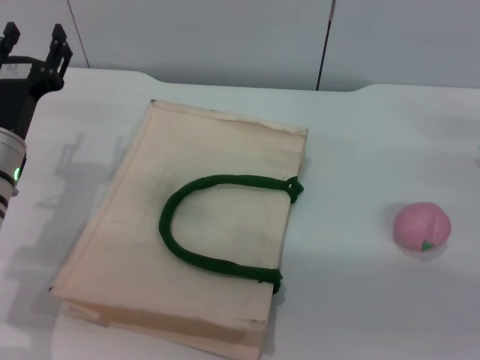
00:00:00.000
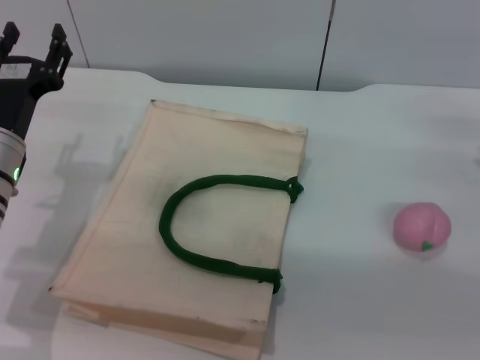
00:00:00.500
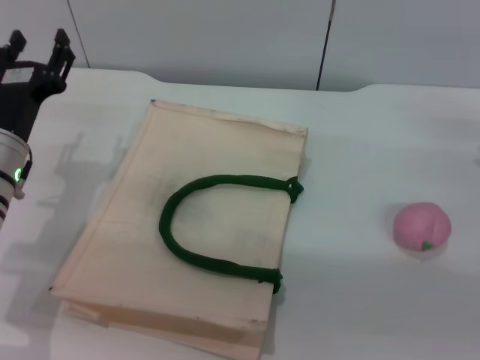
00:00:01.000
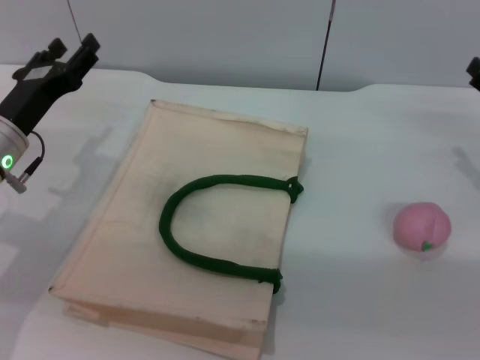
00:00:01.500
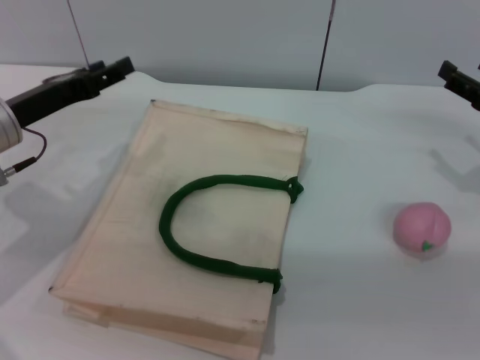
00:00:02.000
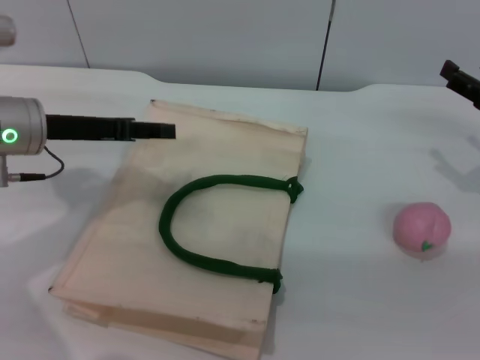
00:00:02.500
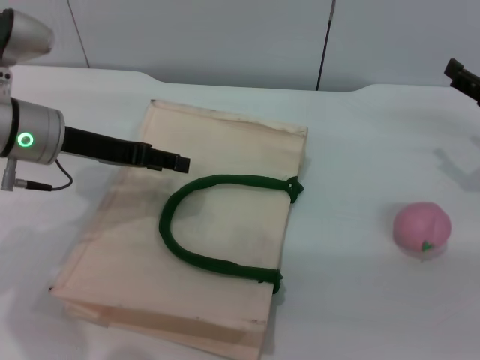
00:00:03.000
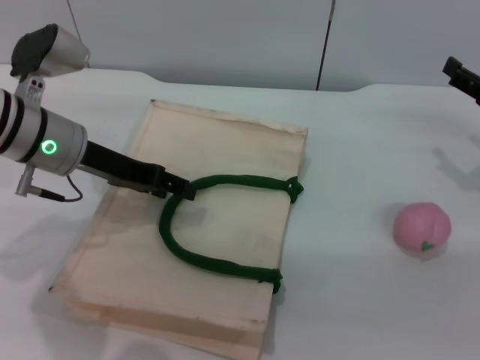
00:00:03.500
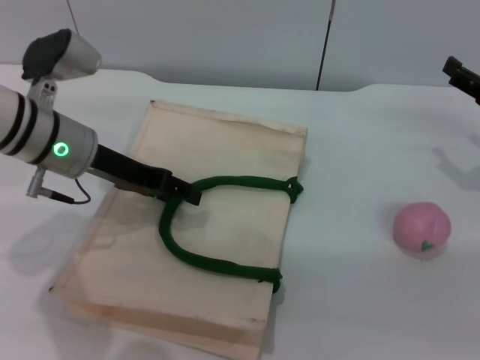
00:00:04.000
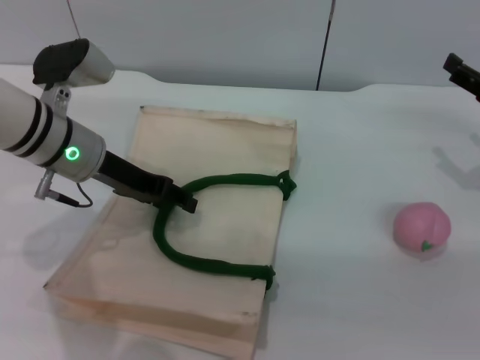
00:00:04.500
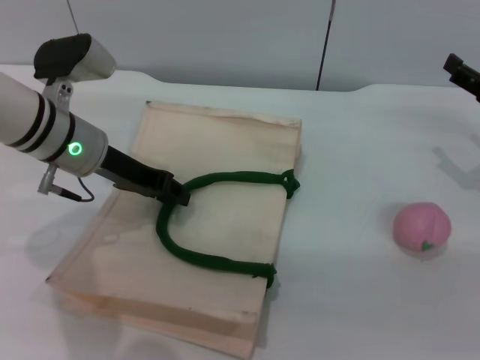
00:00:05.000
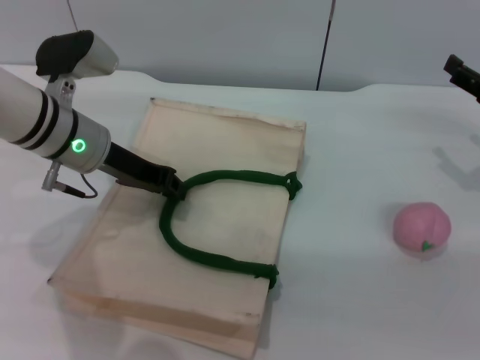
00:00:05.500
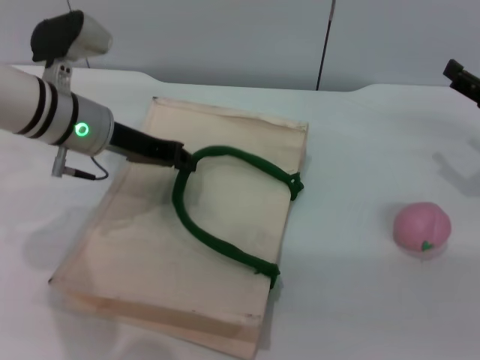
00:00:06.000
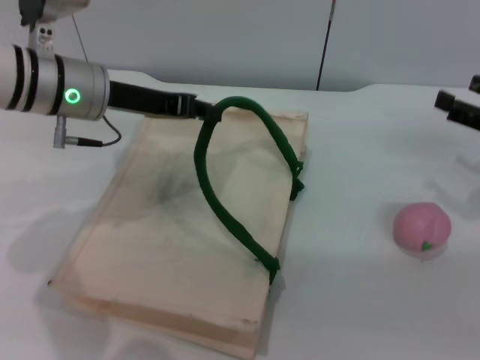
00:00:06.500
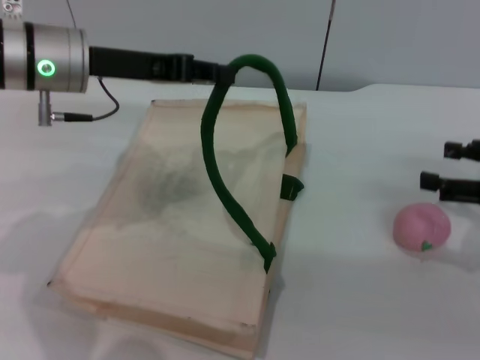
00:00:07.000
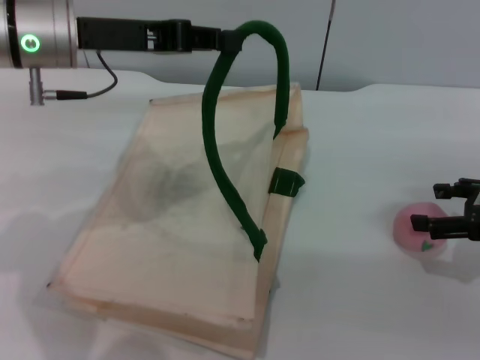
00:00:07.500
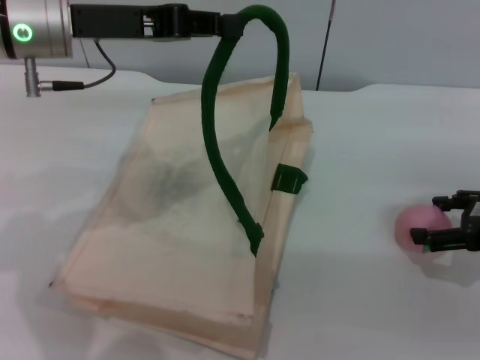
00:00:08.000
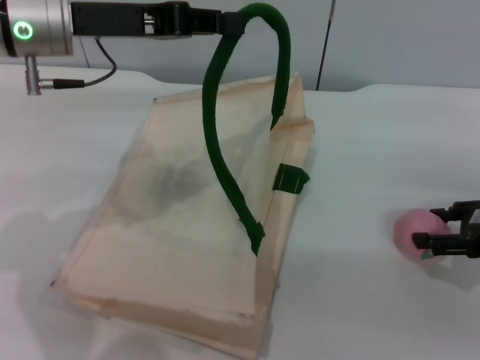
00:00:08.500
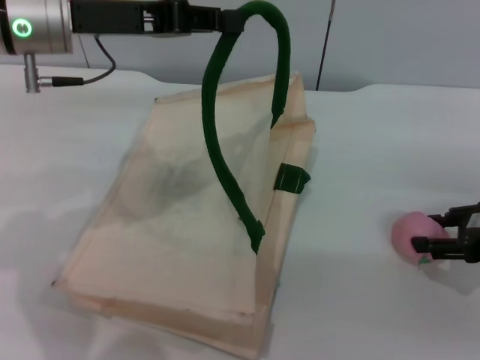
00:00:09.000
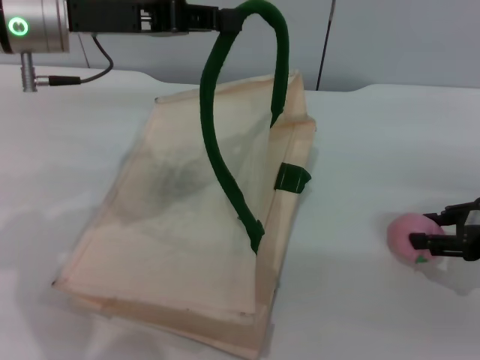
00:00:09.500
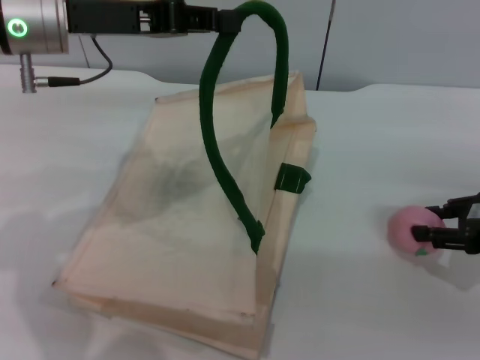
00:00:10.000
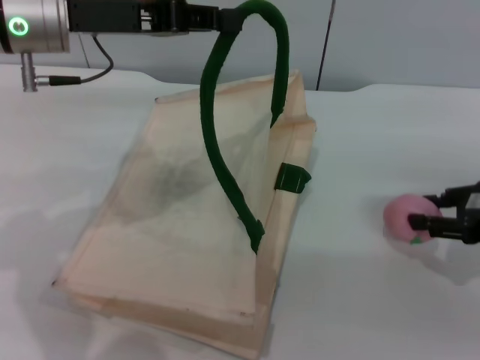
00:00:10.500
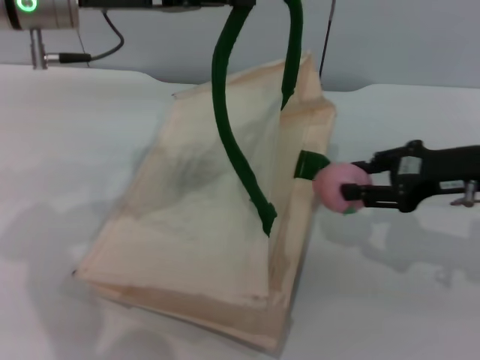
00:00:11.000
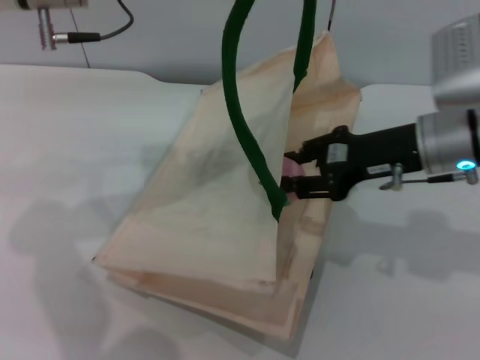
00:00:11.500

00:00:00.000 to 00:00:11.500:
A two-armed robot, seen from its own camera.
Task of the whole recording: pick up the peach from the table and place it in the white handbag.
Step, 00:00:00.000 to 00:00:06.500: Lift the woven bag with the left gripper to open it.
Step, 00:00:07.000 to 00:00:08.000: Pick up the peach with the right gripper.
00:00:00.000 to 00:00:02.000: The left gripper shifts by approximately 5 cm.
00:00:02.000 to 00:00:04.000: The left gripper moves to the right, approximately 5 cm.
00:00:04.000 to 00:00:06.000: The left gripper closes up.
00:00:06.000 to 00:00:07.500: The left gripper shifts approximately 10 cm upward.
00:00:07.500 to 00:00:09.500: The right gripper closes its fingers.
00:00:09.500 to 00:00:11.500: The right gripper goes roughly 15 cm to the left.

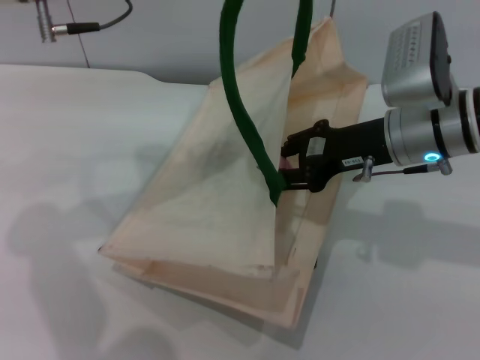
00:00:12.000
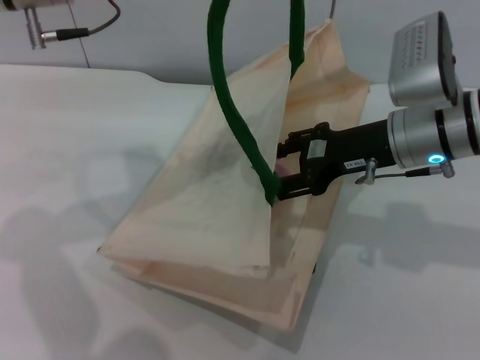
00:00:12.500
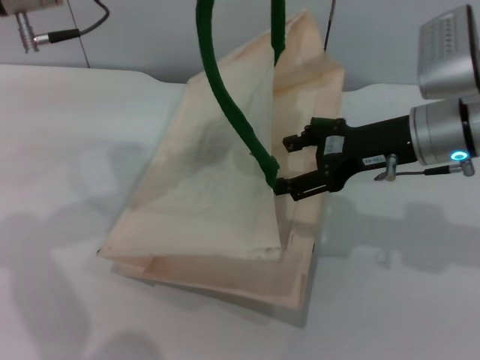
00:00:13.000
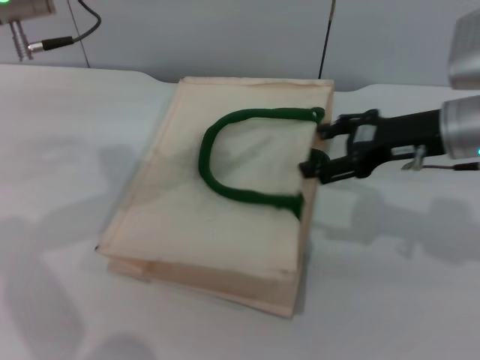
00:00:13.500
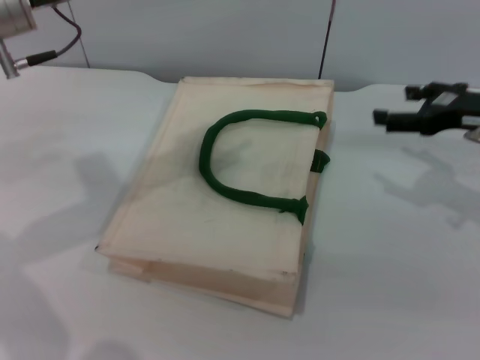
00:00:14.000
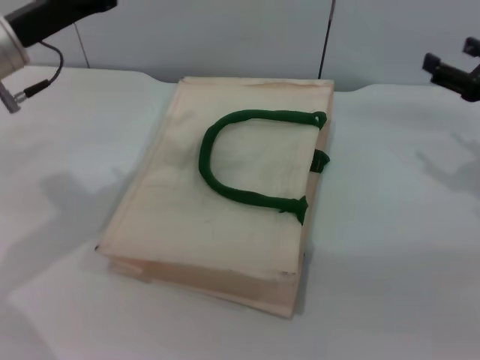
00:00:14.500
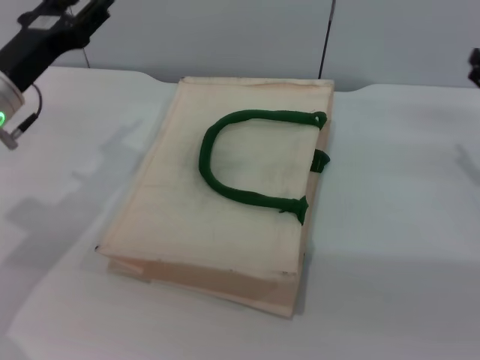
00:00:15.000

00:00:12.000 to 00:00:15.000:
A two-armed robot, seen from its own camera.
Task of the whole recording: pick up the peach from the table and place it in the white handbag.
Step, 00:00:13.000 to 00:00:13.500: Lower the woven bag with the left gripper to close it.
00:00:12.000 to 00:00:13.500: The right gripper shifts approximately 5 cm to the right, and opens; the left gripper opens.
00:00:13.500 to 00:00:15.000: The right gripper goes roughly 10 cm to the right and downward; the left gripper shifts some 10 cm downward, and opens its fingers.

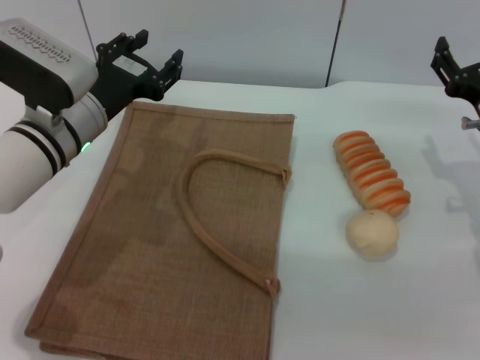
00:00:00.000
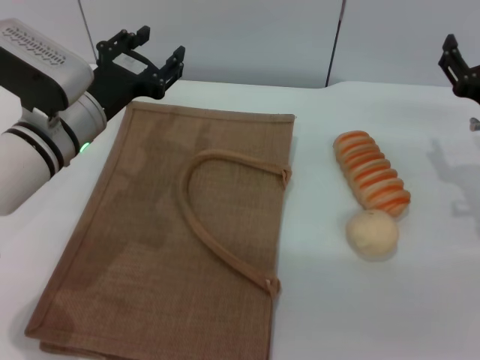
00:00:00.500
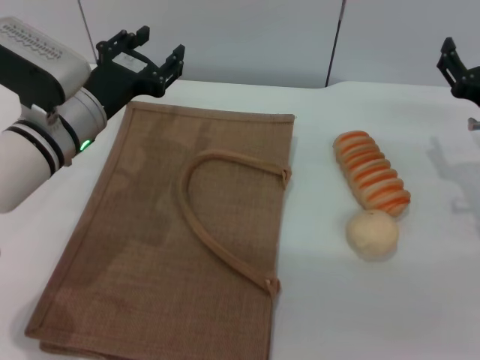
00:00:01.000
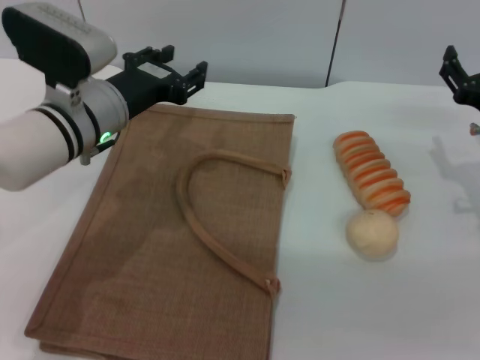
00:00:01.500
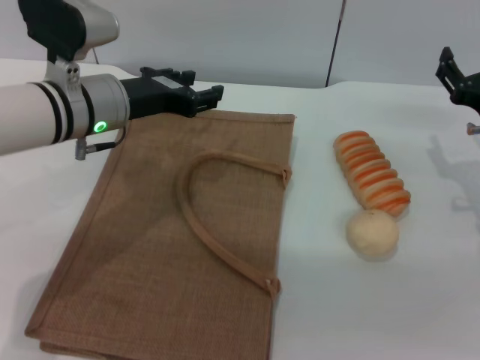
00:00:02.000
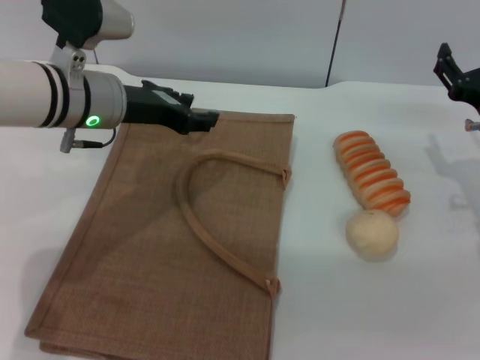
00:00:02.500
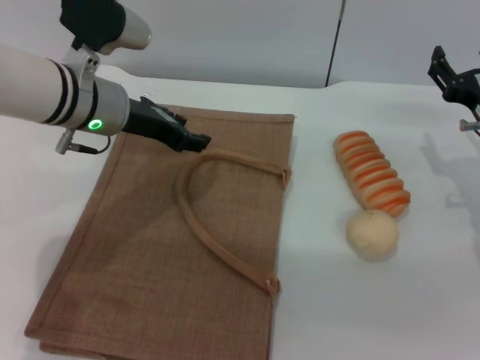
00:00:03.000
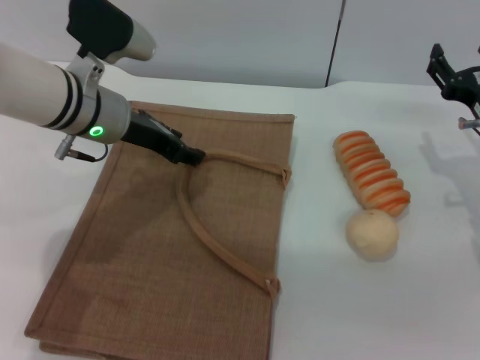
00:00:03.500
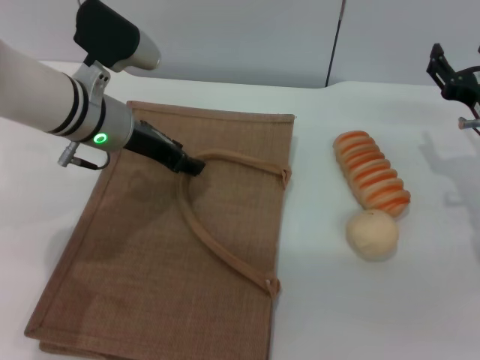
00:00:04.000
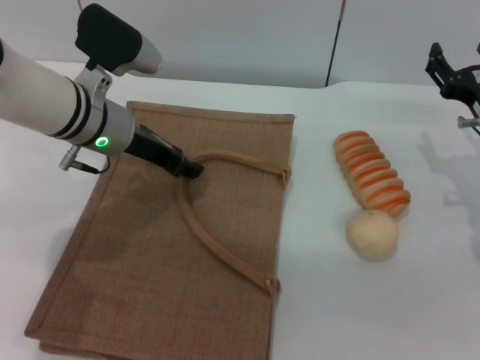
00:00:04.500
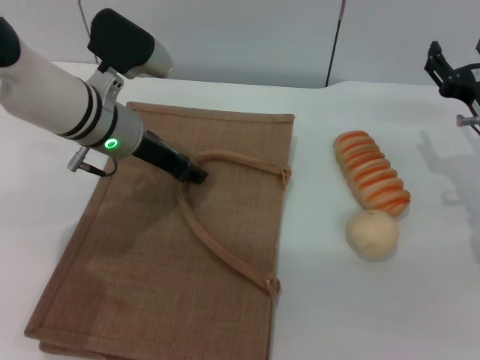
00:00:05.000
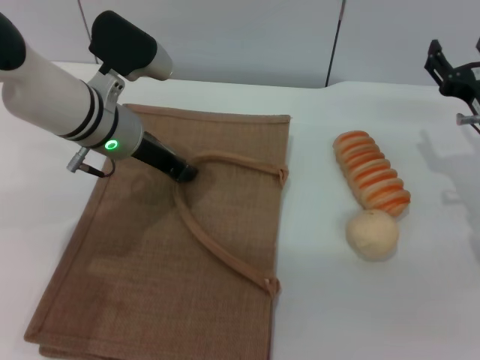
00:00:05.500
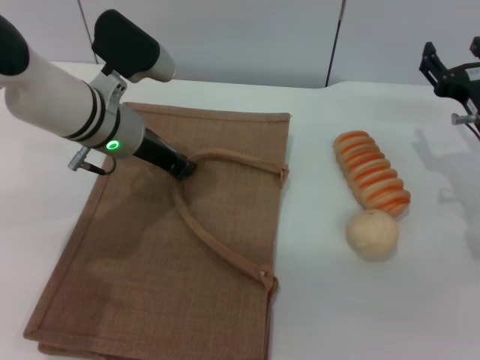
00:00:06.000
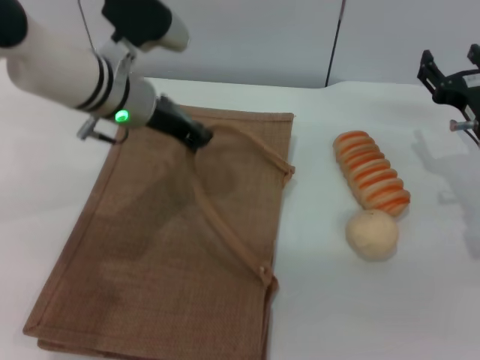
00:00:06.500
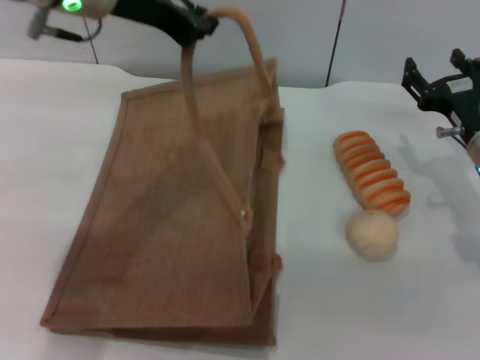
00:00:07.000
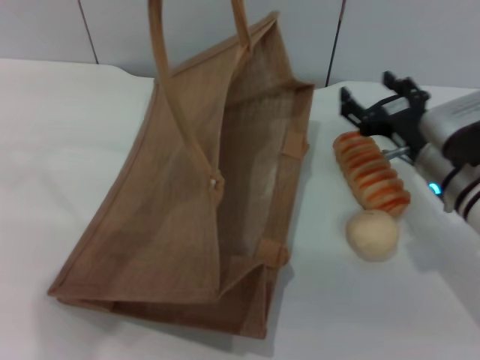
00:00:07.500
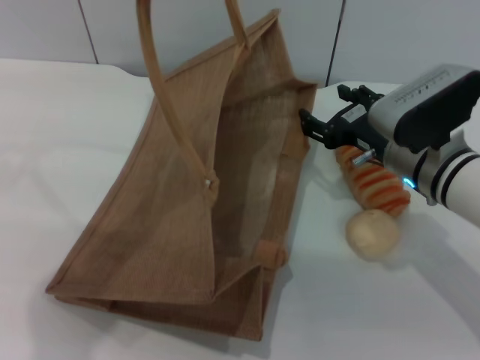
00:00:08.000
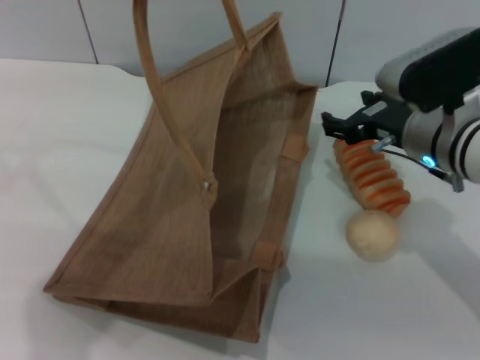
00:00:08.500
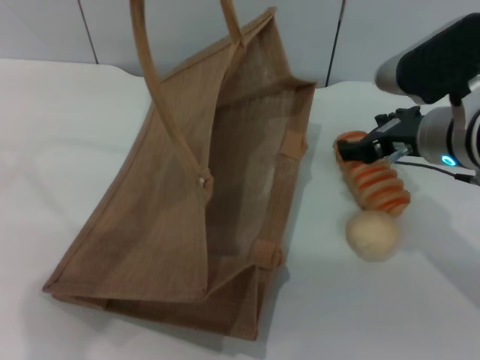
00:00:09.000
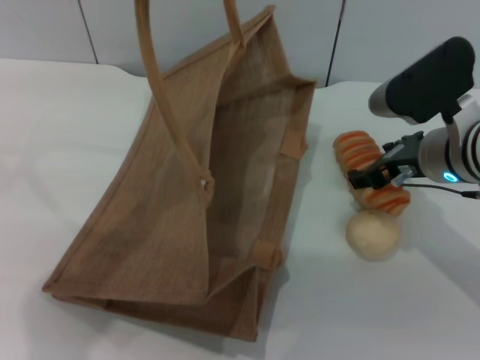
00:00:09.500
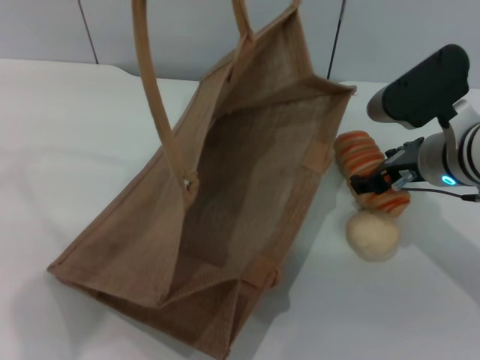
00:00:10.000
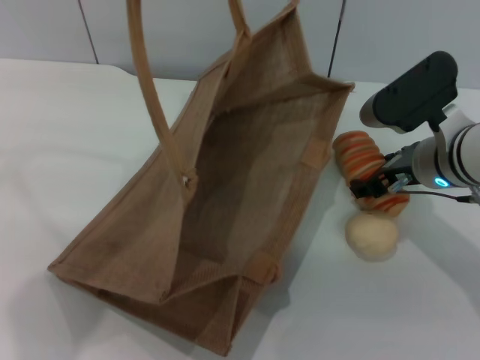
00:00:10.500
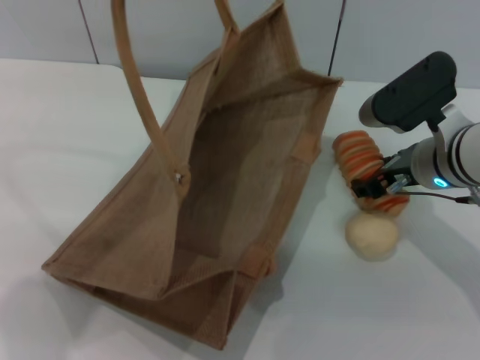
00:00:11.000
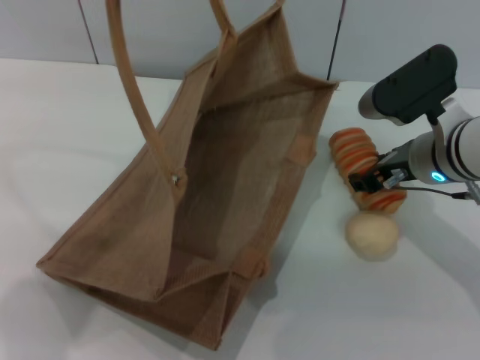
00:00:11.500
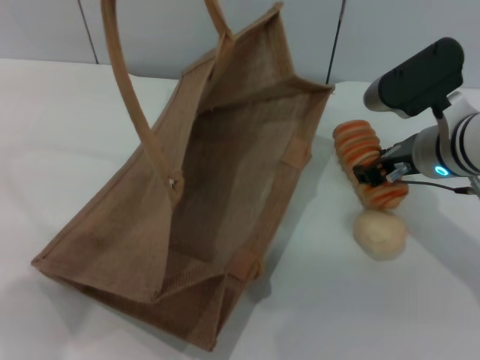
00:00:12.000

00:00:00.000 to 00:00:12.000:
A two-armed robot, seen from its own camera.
Task of the whole recording: pick up the bread and egg yolk pastry from the table and place it in the brown handbag.
Step, 00:00:00.000 to 00:00:06.500: Lift the woven bag with the left gripper to open it.
00:00:04.000 to 00:00:06.000: The left gripper closes its fingers.
00:00:06.000 to 00:00:08.000: The left gripper shifts some 25 cm upward. Meanwhile the right gripper heads to the left, covering roughly 10 cm.
00:00:10.000 to 00:00:12.000: The right gripper closes.
